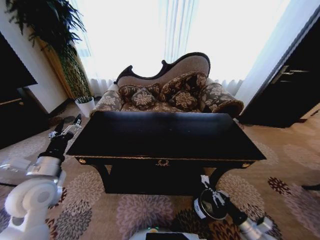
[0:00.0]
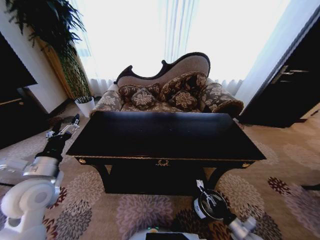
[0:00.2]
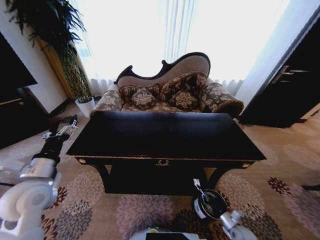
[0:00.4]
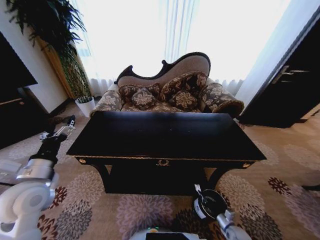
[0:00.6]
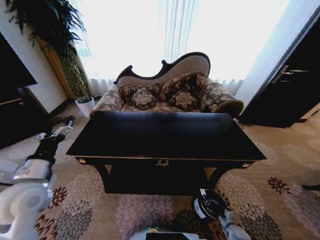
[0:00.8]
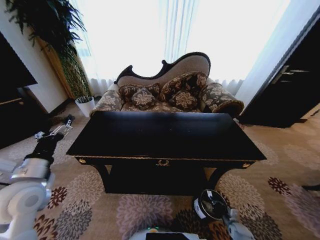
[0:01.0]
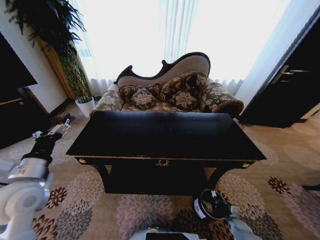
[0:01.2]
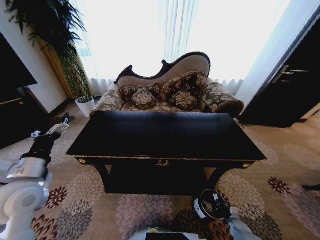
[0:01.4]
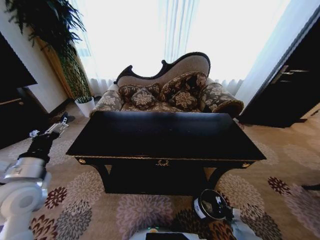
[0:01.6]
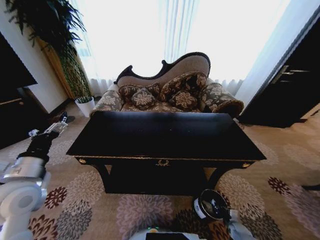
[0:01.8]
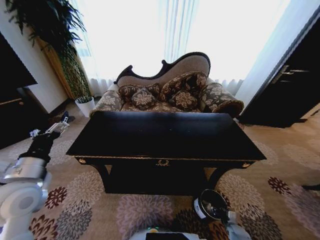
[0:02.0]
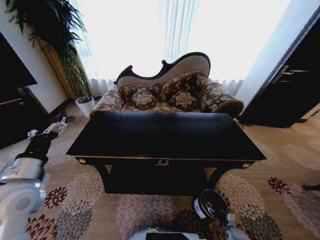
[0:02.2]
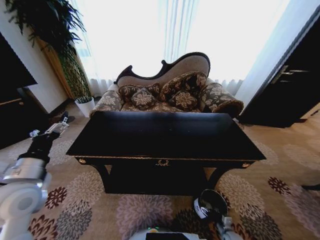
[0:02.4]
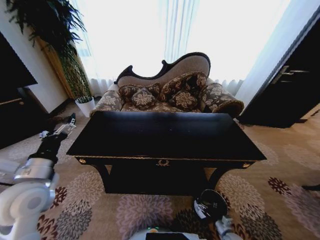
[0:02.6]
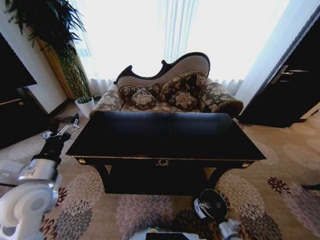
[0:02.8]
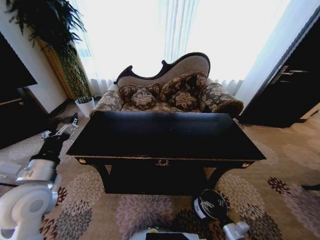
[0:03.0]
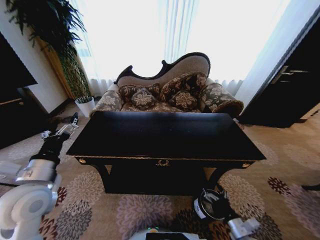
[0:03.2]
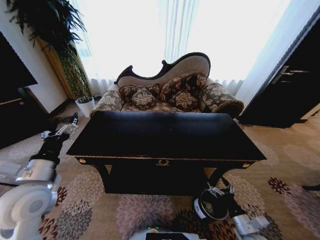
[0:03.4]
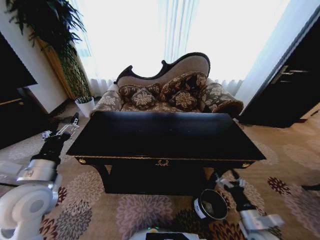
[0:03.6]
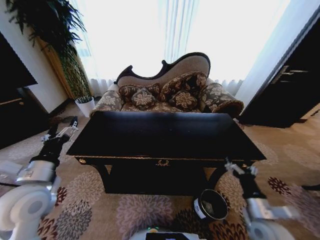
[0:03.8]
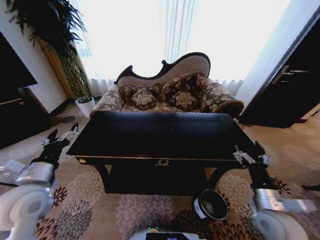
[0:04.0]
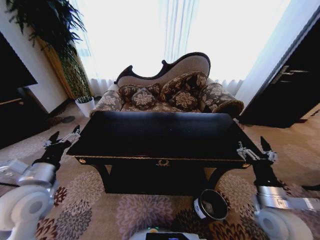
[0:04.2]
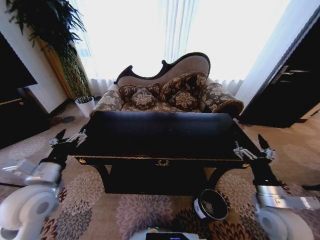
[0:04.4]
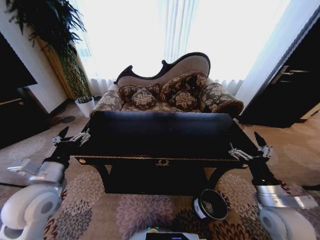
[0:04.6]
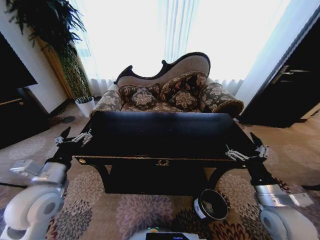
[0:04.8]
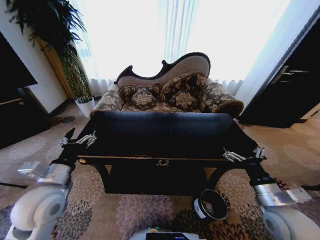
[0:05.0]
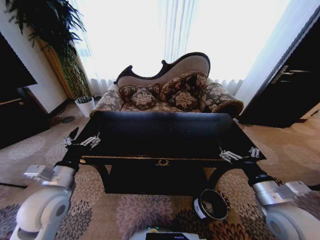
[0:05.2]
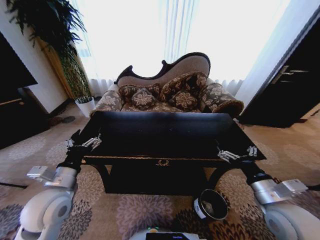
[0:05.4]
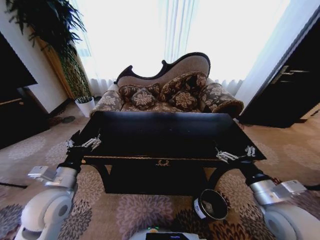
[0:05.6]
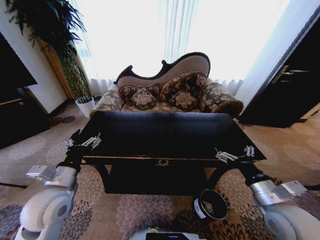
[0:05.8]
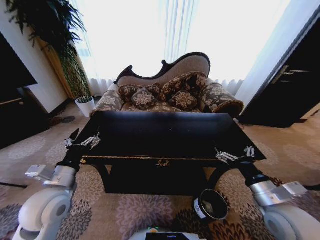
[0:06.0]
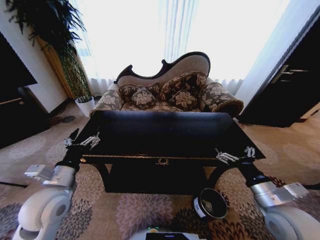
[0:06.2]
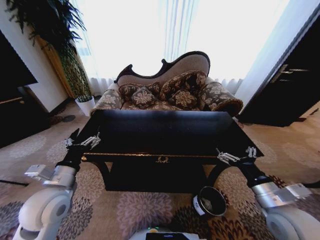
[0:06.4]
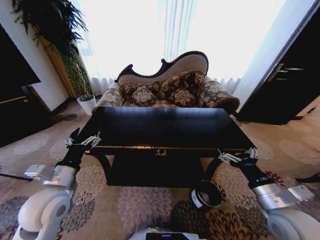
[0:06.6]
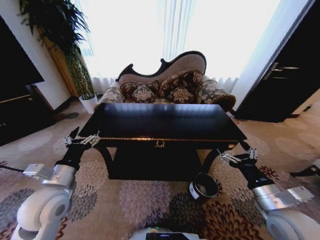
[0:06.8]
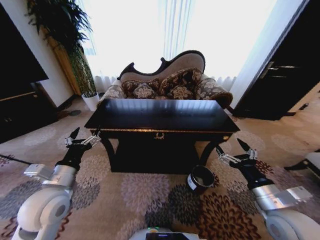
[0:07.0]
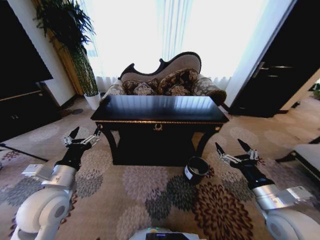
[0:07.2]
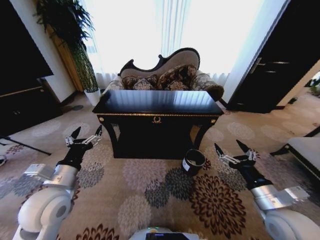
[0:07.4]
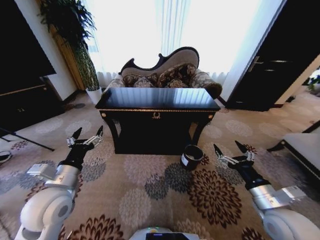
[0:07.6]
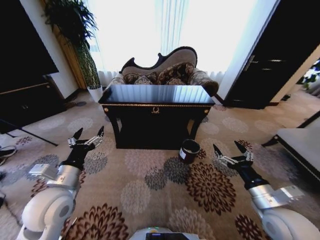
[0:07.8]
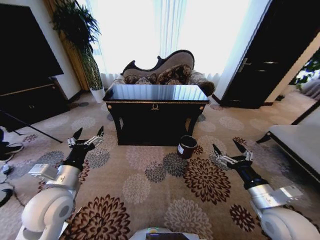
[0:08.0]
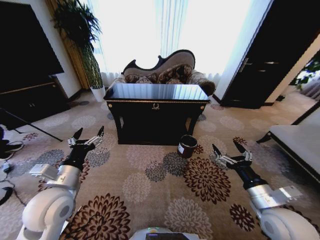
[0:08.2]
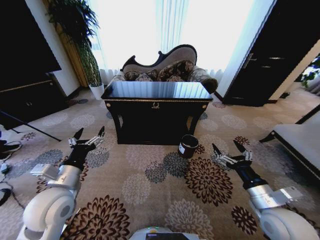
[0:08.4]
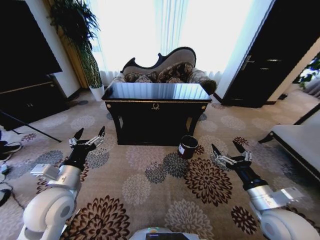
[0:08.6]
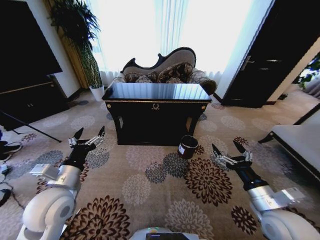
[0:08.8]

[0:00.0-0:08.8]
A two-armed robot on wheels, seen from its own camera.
Task of the whole recording: Move to the front of the table and place the trash on the table into the trash bin.
0:00.0 to 0:01.4: The right gripper travels downward by roughly 20 cm.
0:01.4 to 0:03.0: The right gripper heads upward, to the left and backward, covering approximately 20 cm, and opens.
0:03.0 to 0:04.4: The right gripper goes some 25 cm upward.

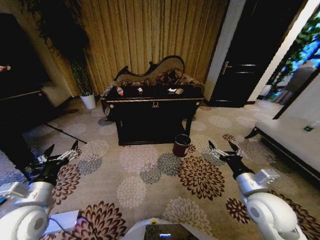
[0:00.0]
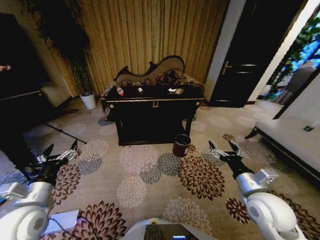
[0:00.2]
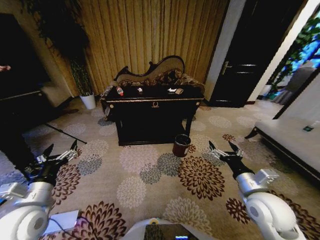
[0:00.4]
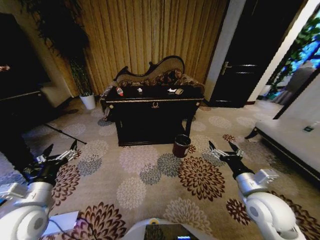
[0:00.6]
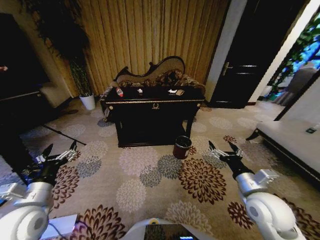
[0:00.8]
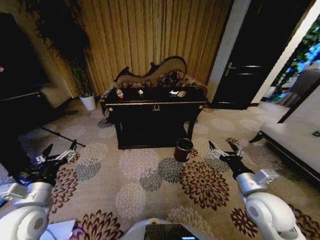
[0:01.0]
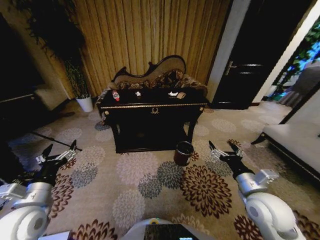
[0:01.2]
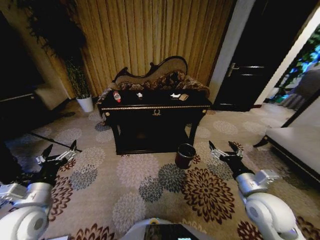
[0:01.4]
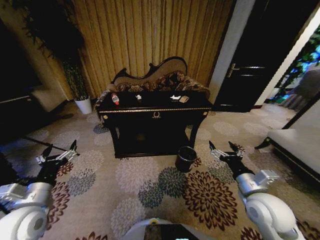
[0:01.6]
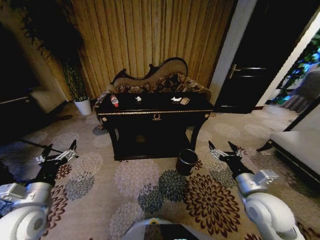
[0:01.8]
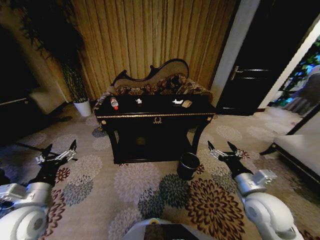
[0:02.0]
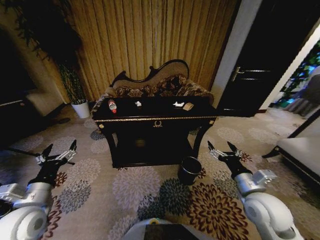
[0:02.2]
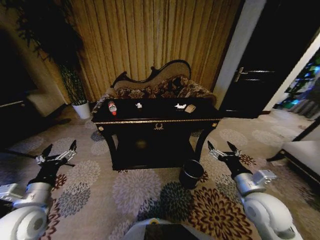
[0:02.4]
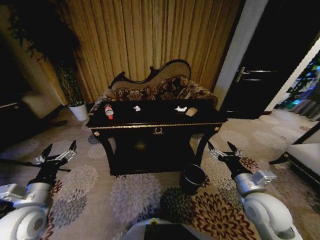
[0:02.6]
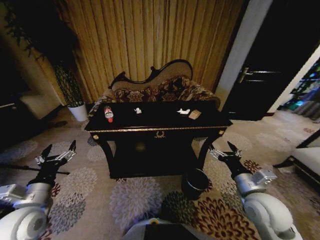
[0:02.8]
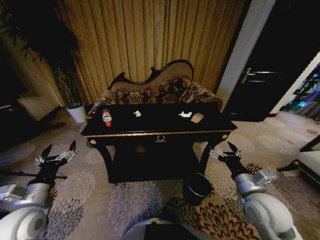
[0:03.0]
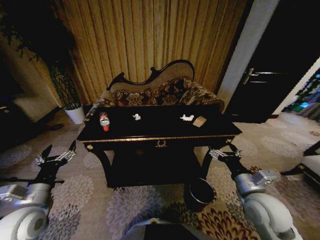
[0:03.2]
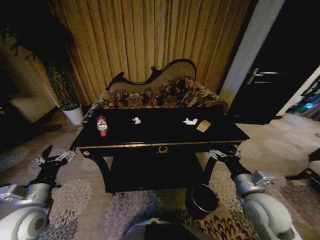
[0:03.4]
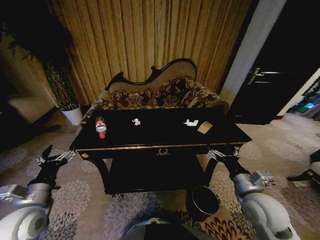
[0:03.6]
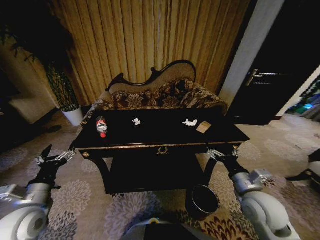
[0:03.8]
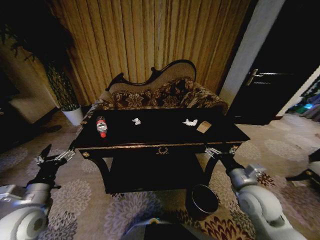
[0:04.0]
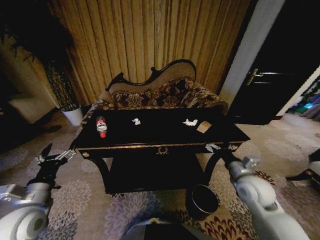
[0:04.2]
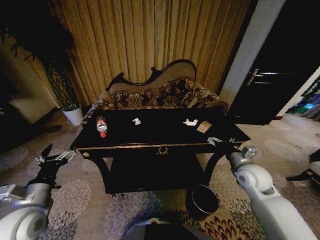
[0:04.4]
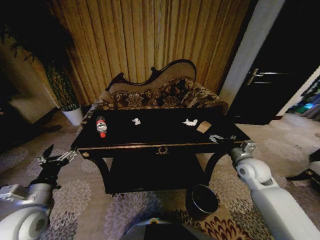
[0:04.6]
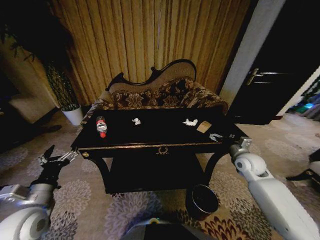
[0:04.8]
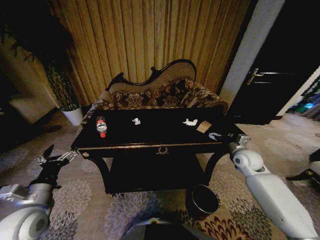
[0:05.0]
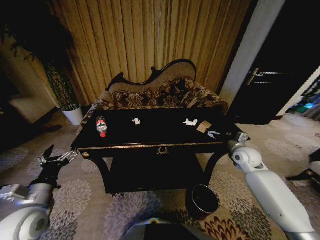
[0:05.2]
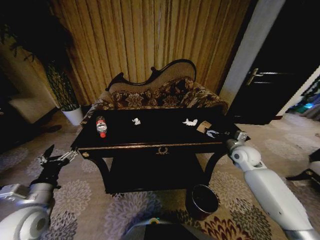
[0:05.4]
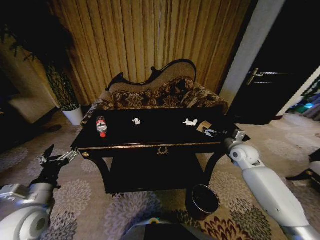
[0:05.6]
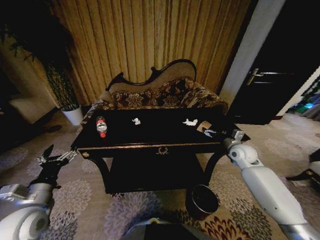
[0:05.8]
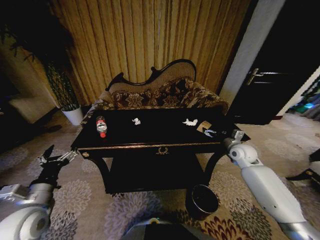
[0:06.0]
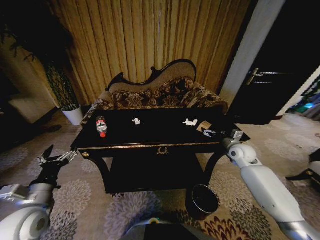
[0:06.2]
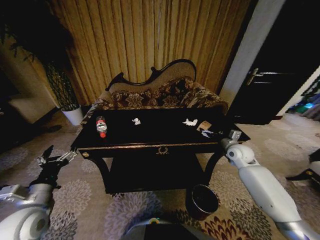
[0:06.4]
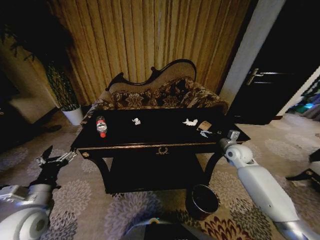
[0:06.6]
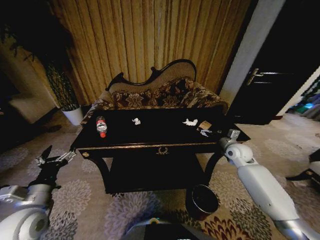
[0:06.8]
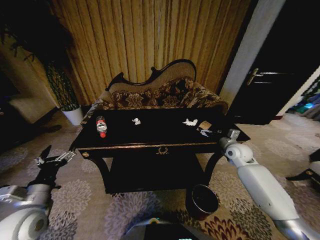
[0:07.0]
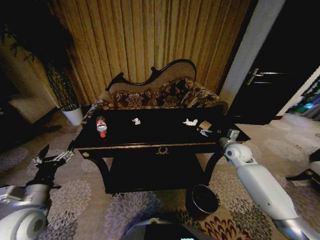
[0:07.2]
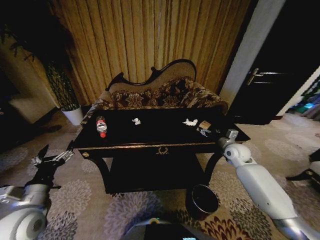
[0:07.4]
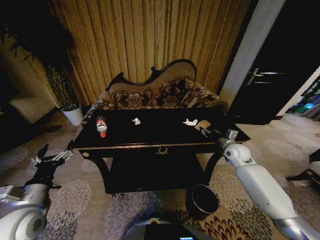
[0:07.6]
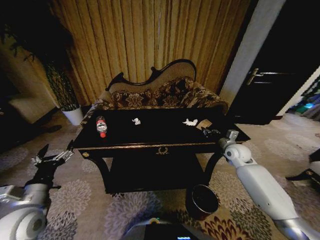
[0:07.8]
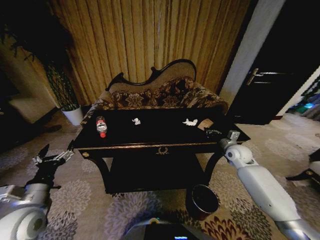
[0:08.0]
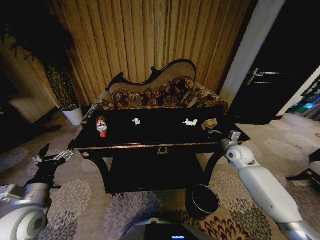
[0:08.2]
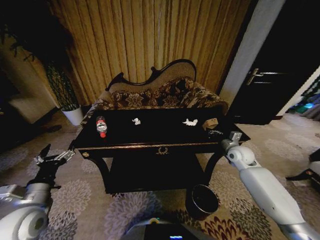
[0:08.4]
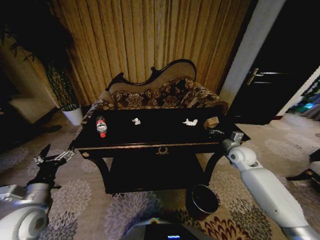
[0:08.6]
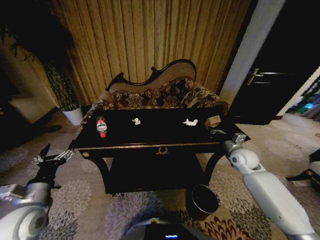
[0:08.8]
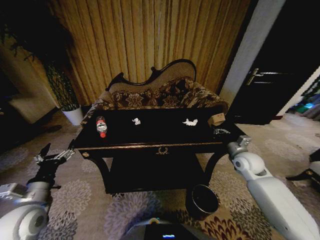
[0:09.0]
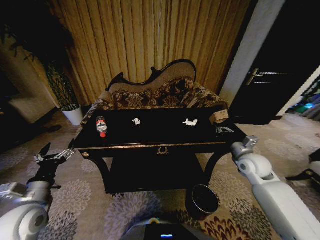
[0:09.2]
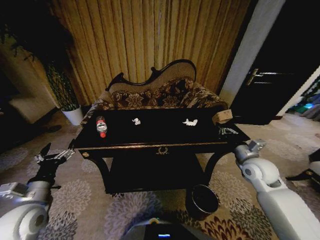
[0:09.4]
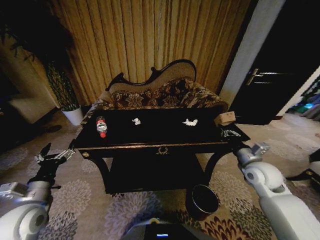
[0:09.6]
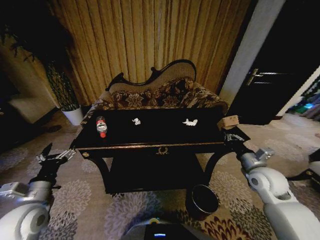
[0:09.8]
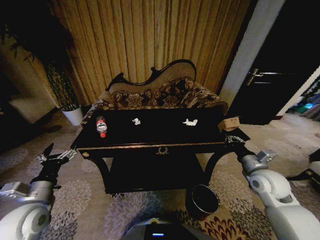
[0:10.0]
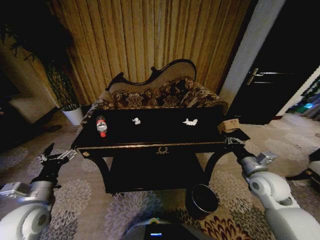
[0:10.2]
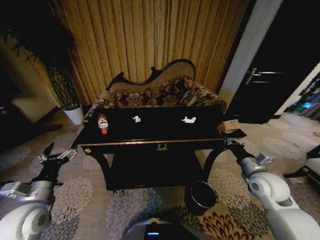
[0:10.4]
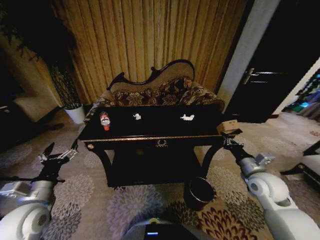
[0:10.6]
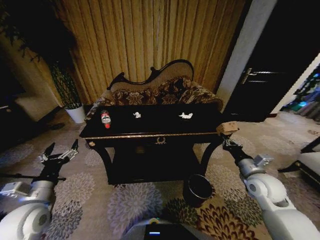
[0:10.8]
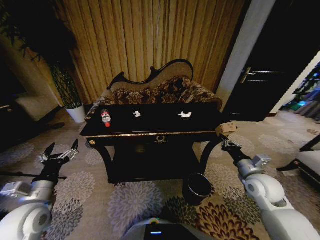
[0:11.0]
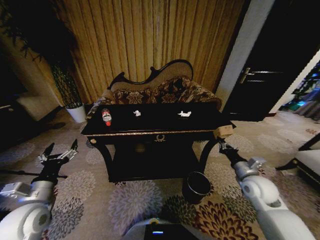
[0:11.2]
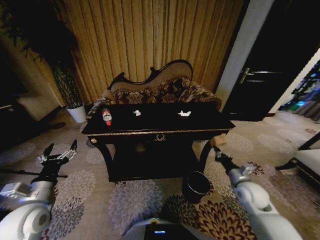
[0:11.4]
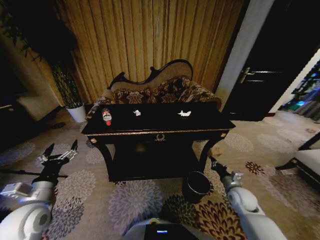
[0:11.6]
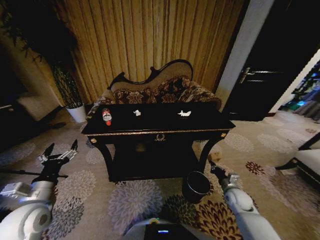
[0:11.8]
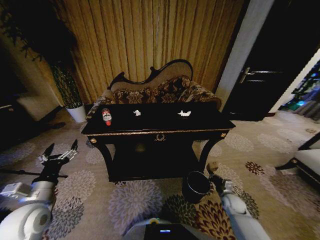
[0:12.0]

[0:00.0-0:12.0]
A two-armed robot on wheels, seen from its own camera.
Task of the whole recording: Move to the front of the table and place the trash on the table into the trash bin.
0:03.0 to 0:04.4: The right gripper goes approximately 10 cm forward.
0:04.4 to 0:06.0: The right gripper goes approximately 10 cm forward.
0:06.0 to 0:07.6: The right gripper closes up.
0:07.6 to 0:09.0: The right gripper heads backward, covering approximately 5 cm, and closes its fingers.
0:09.0 to 0:10.4: The right gripper goes roughly 10 cm backward.
0:10.4 to 0:12.0: The right gripper shifts some 25 cm downward.

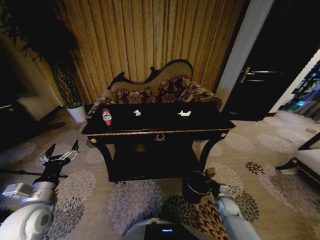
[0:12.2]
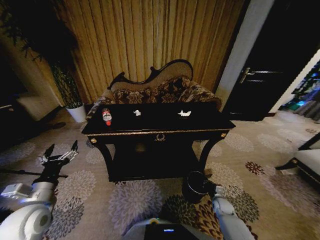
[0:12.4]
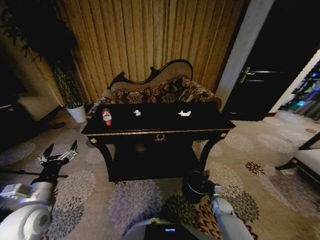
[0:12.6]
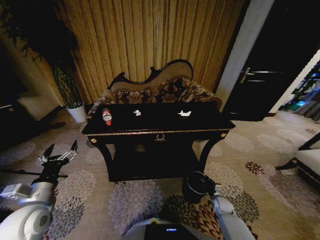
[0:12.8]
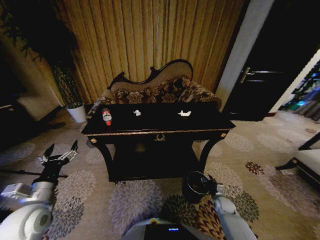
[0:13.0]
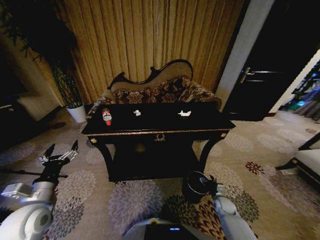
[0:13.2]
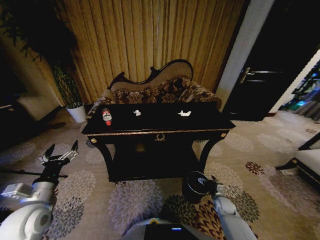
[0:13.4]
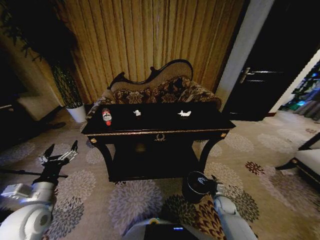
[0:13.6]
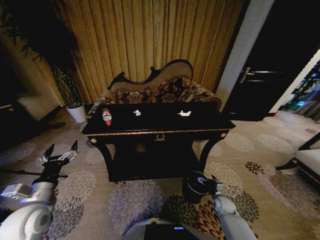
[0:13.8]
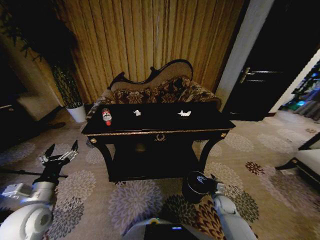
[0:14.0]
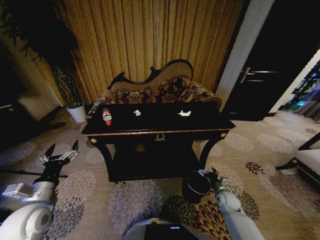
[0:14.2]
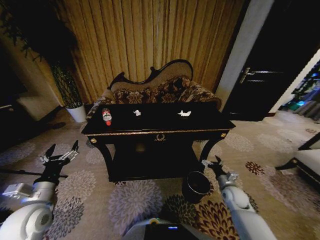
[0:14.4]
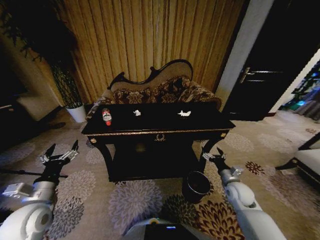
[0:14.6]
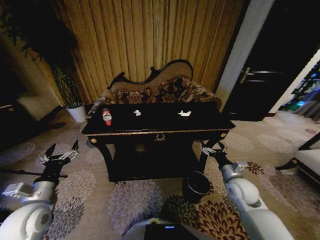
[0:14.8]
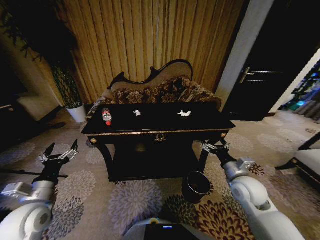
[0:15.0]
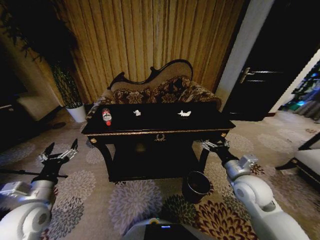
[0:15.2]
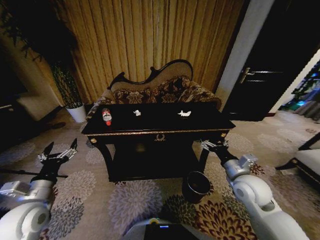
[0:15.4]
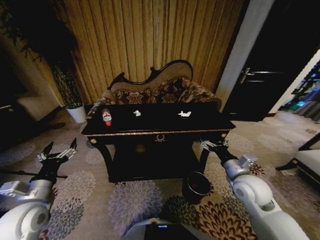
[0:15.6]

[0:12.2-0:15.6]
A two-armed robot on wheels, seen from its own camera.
Task of the whole recording: Move to the front of the table and place the trash on the table into the trash bin.
0:12.2 to 0:13.8: The right gripper opens.
0:13.8 to 0:15.6: The right gripper moves upward, some 30 cm.
